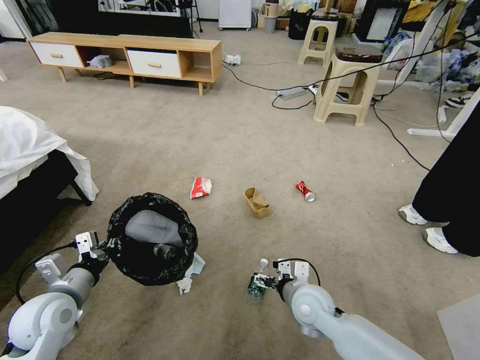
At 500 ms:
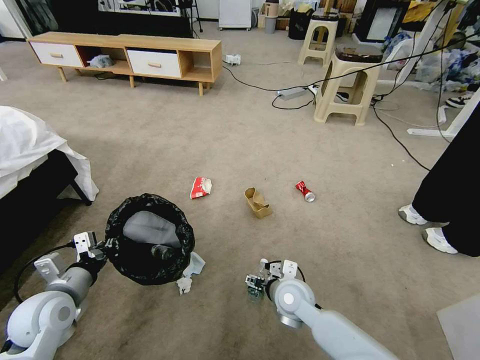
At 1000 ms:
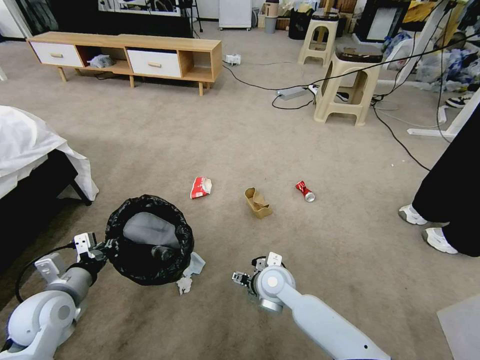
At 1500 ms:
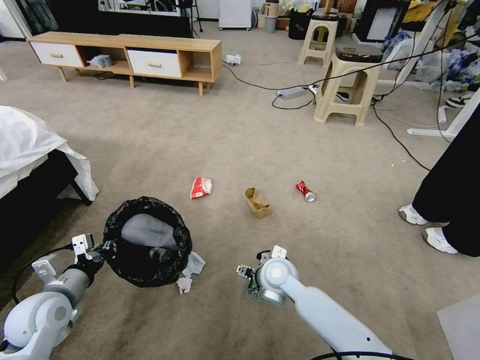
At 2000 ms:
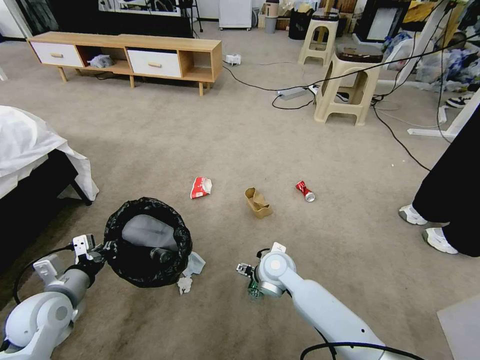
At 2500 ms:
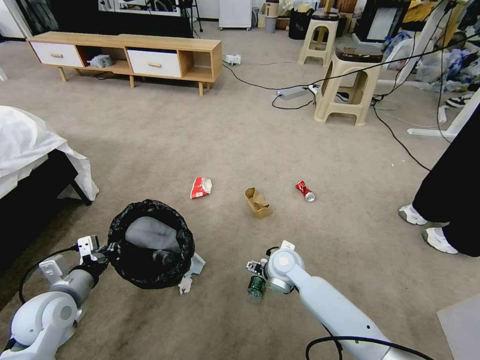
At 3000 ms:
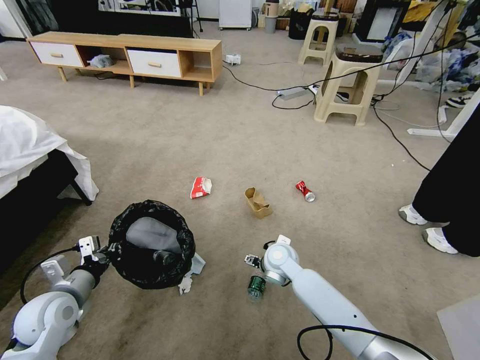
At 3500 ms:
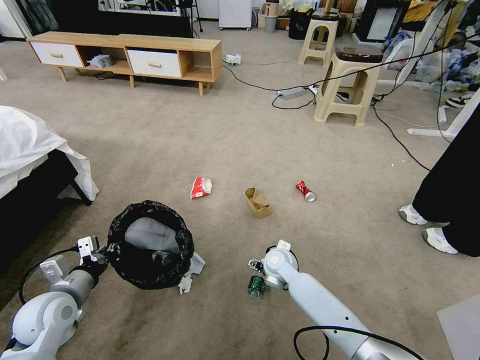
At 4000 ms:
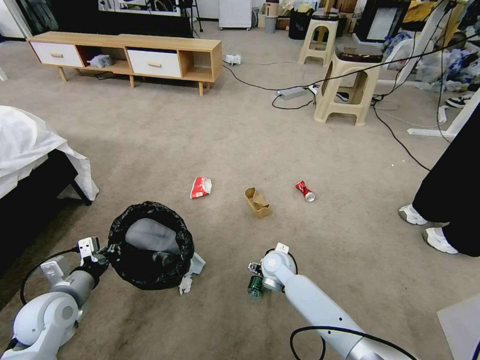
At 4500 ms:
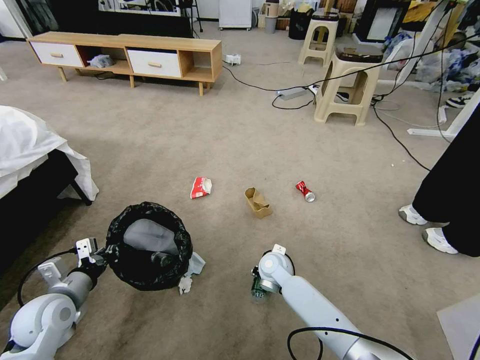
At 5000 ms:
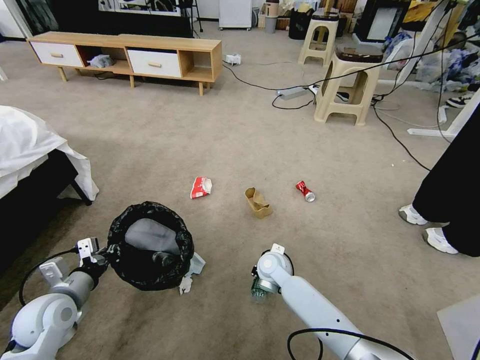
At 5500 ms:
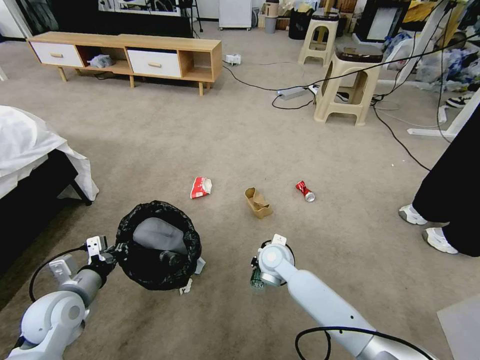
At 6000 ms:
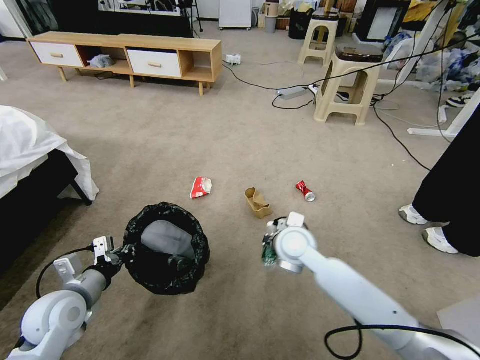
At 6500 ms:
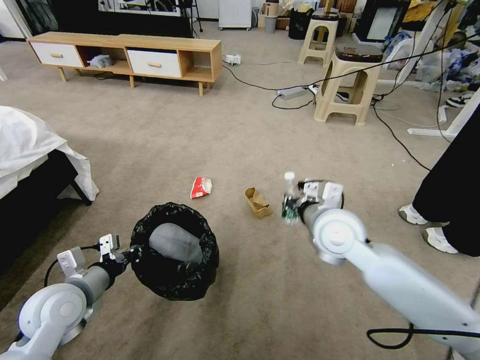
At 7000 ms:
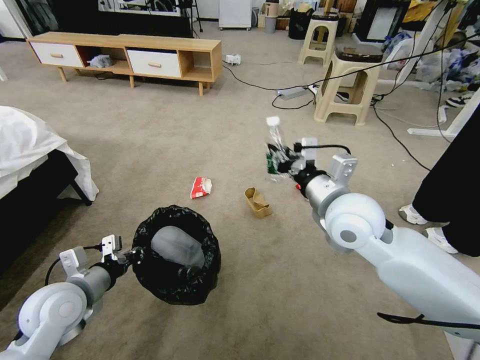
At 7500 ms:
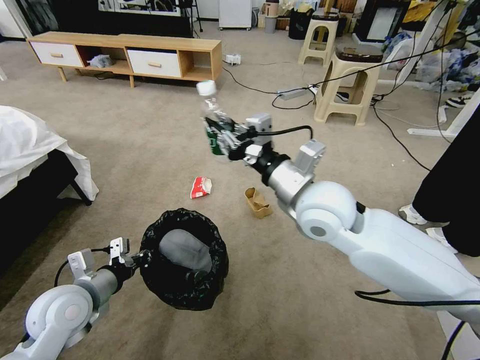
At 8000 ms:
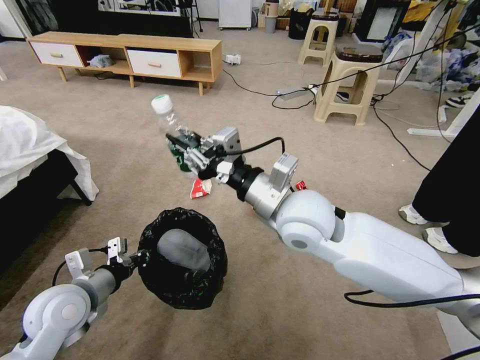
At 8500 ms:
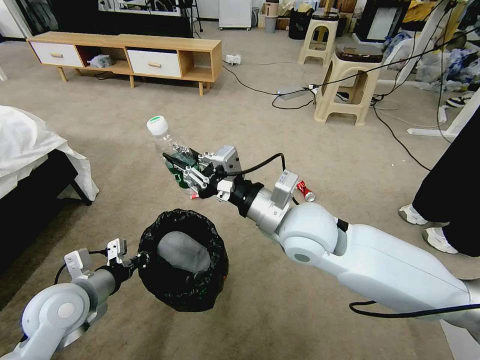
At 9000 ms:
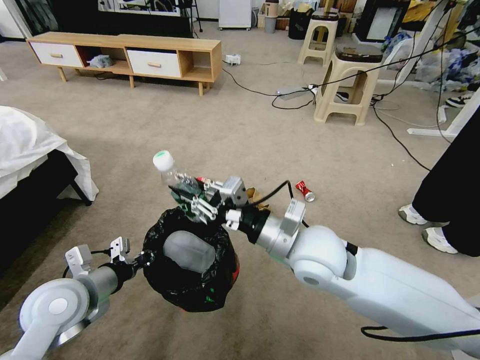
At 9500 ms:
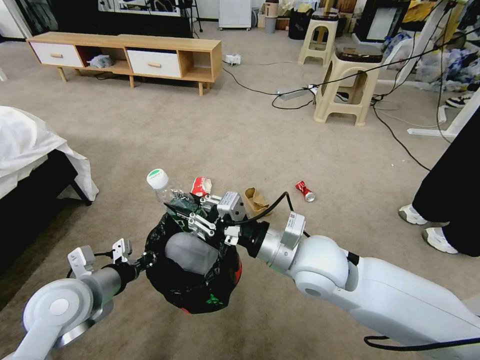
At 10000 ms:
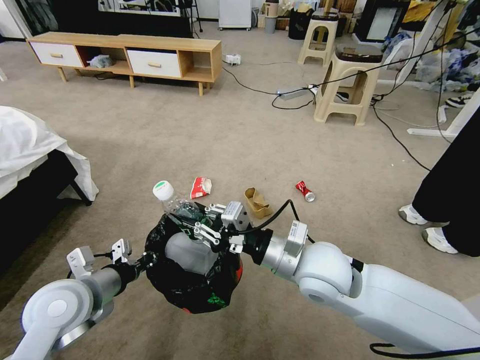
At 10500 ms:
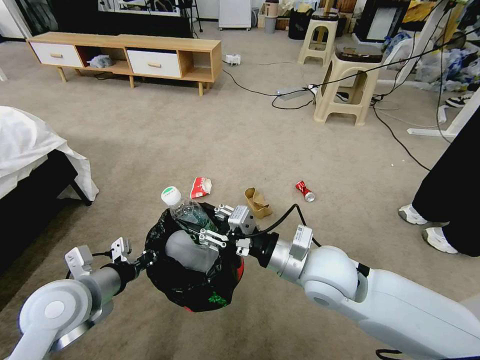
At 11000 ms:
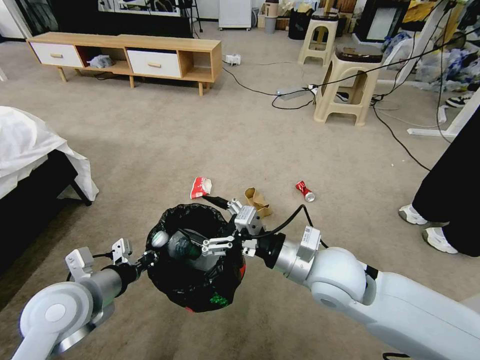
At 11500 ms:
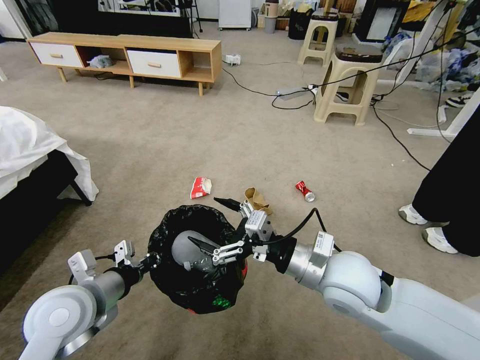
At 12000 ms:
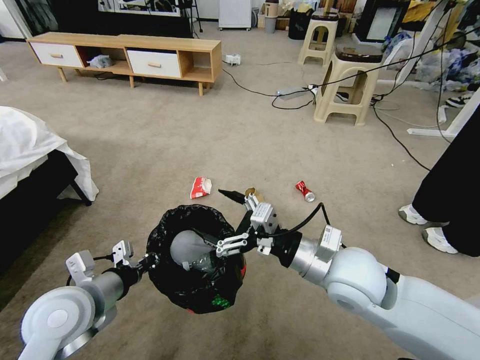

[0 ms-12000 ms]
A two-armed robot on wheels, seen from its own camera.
Task of the whole recording: Pick up the trash bin, then pick up the garbage from the floor and place it into the trash bin.
0 ms to 2000 ms: The right gripper is displaced to the left and forward by some 15 cm.
2000 ms to 4000 ms: The right gripper travels downward by about 5 cm.
4000 ms to 6000 ms: The right gripper is displaced upward by approximately 15 cm, and closes up.
6000 ms to 8000 ms: The right gripper heads upward, covering roughly 15 cm.
8000 ms to 10000 ms: The right gripper travels downward and backward by about 10 cm.
10000 ms to 12000 ms: The right gripper changes place by about 5 cm, and opens up.

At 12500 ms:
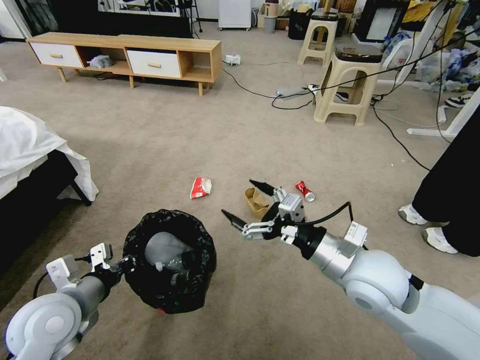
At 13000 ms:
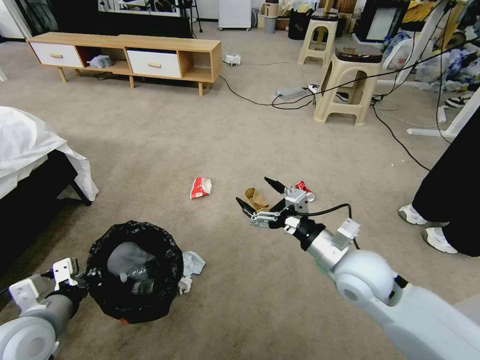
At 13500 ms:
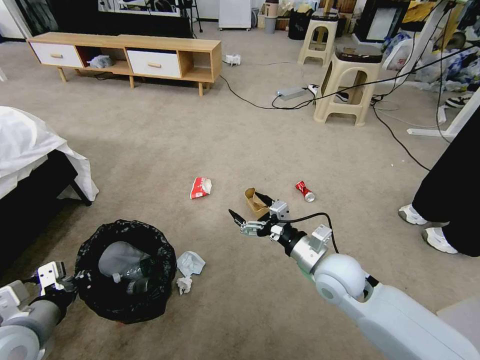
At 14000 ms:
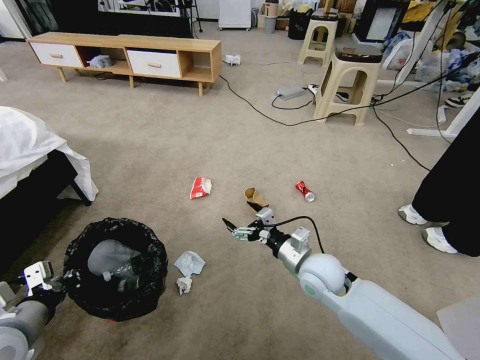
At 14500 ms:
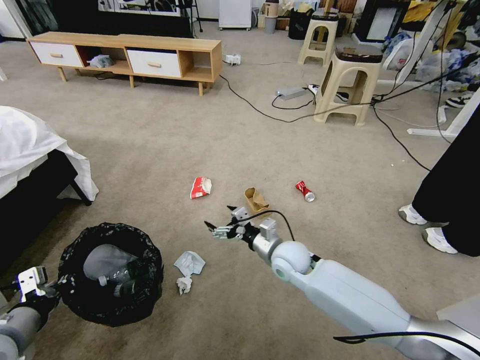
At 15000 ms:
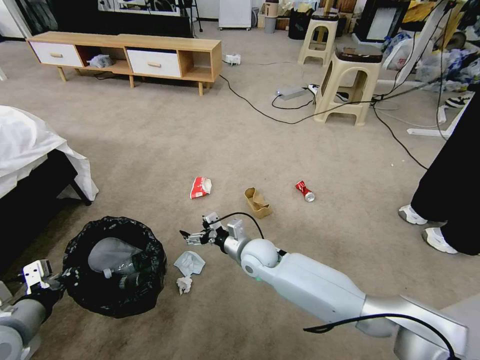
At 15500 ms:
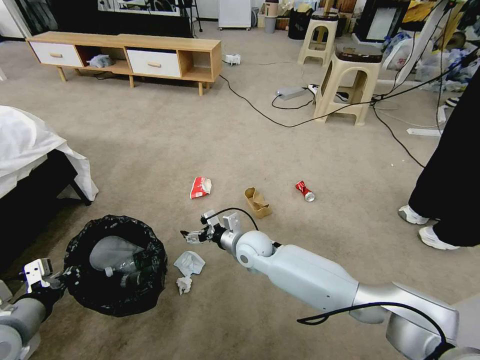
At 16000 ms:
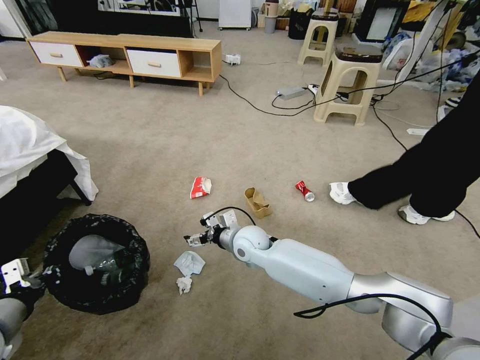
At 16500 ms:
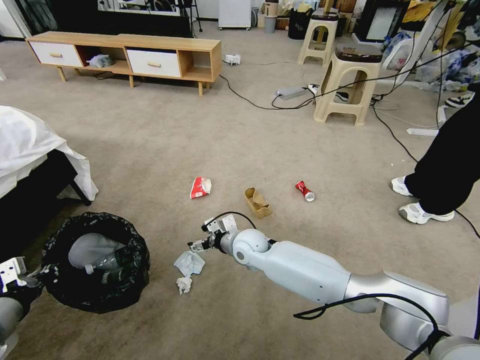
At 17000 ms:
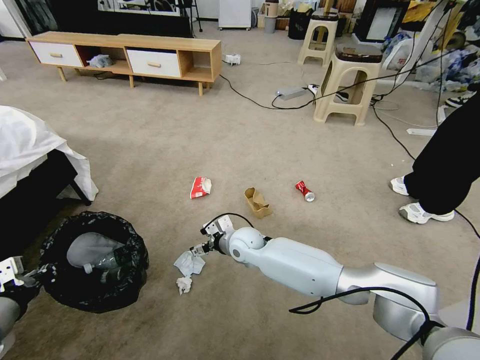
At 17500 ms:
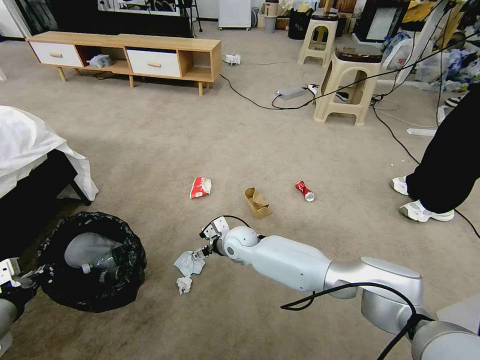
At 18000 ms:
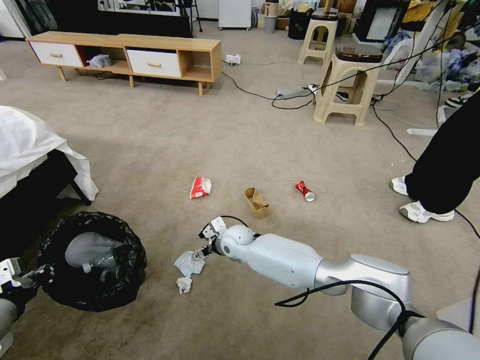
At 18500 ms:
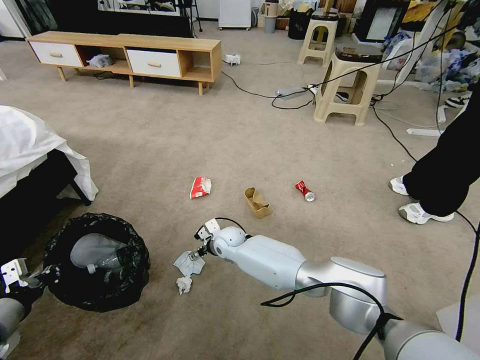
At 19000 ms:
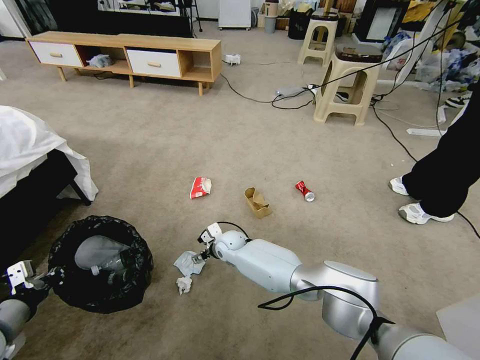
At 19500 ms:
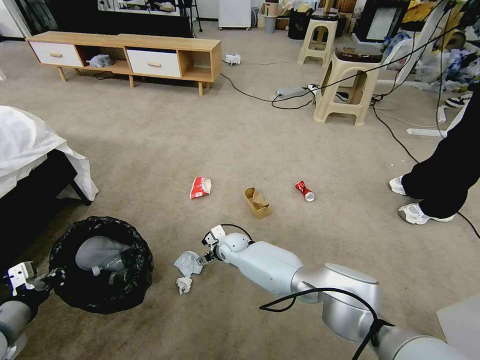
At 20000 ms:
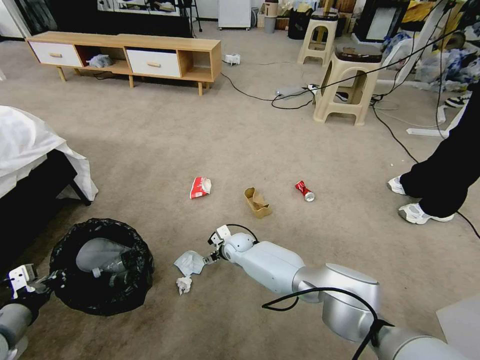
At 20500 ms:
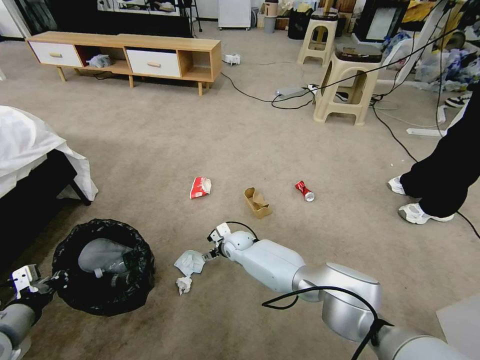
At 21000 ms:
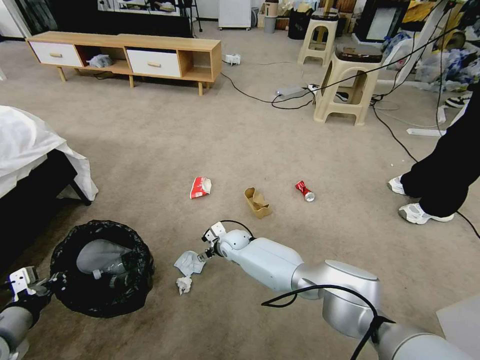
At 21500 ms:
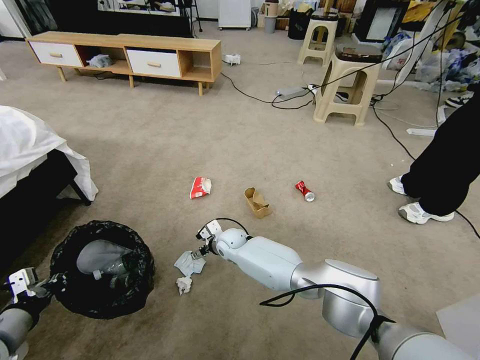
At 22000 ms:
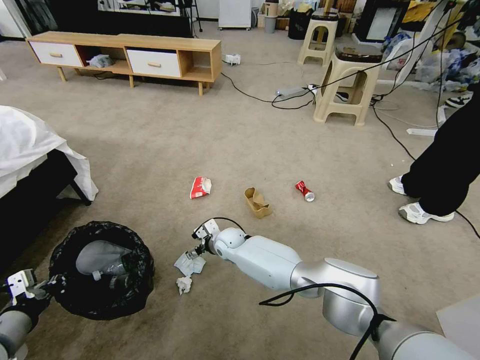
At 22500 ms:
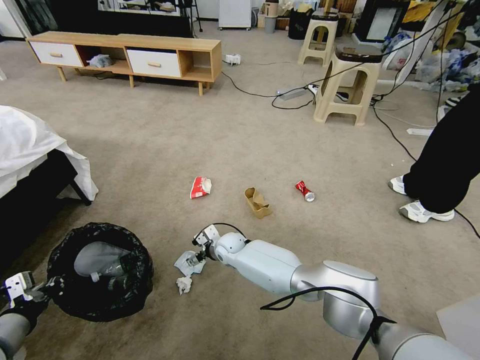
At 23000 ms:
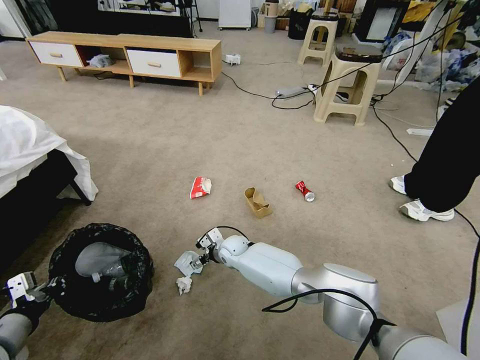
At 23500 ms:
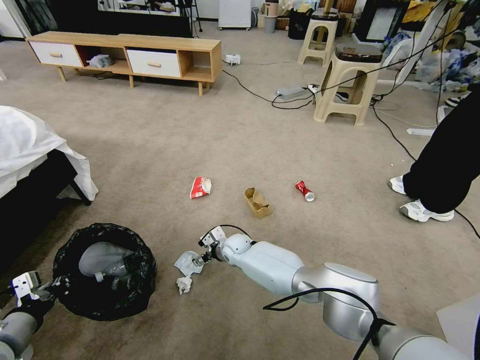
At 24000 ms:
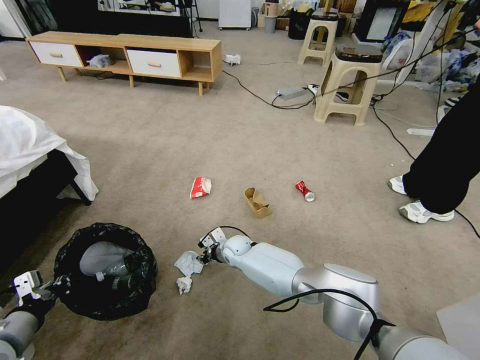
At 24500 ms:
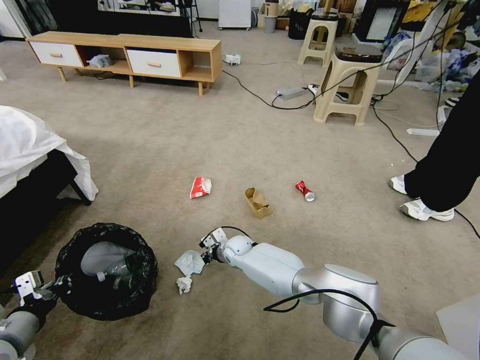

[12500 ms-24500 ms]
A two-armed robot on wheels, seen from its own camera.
Task of the whole recording: Pick up the trash bin, then pick up the garbage from the floor and place it into the trash bin.
12500 ms to 14500 ms: The right gripper travels downward, forward and to the left by some 20 cm. The left gripper shifts some 10 cm to the left and backward.
14500 ms to 16500 ms: The right gripper moves to the left and forward, approximately 10 cm.
16500 ms to 18500 ms: The right gripper heads to the left and downward, covering some 10 cm.
18500 ms to 20500 ms: The right gripper shifts by roughly 5 cm.
20500 ms to 22500 ms: The grippers stay close to where they were, moving slightly.
22500 ms to 24500 ms: The right gripper closes.

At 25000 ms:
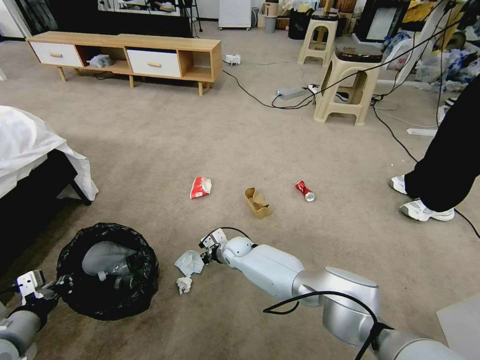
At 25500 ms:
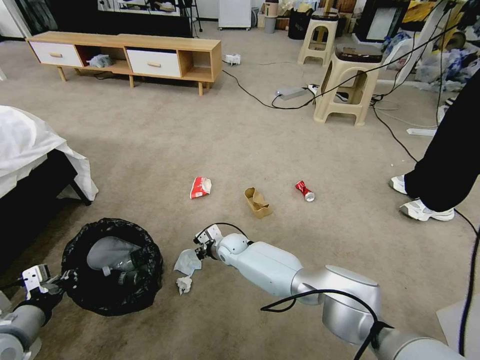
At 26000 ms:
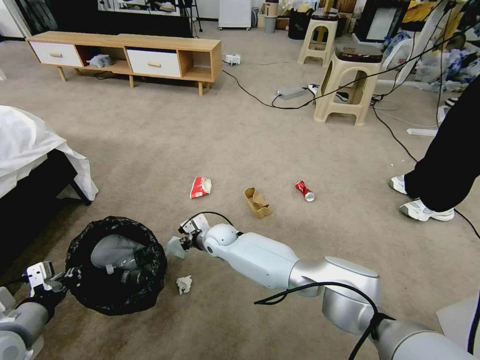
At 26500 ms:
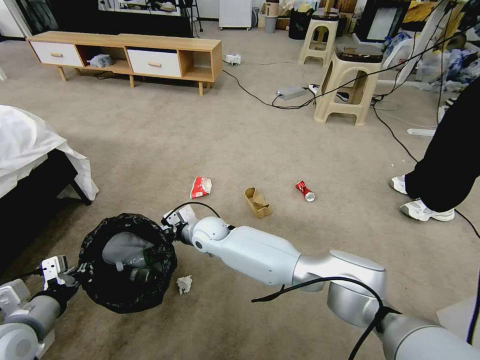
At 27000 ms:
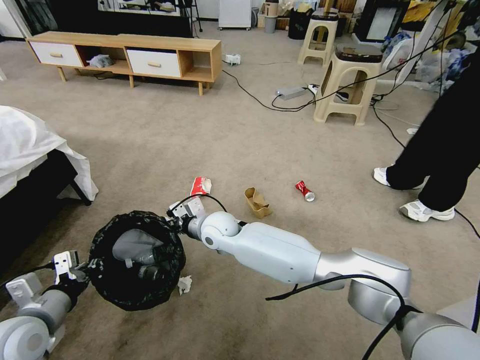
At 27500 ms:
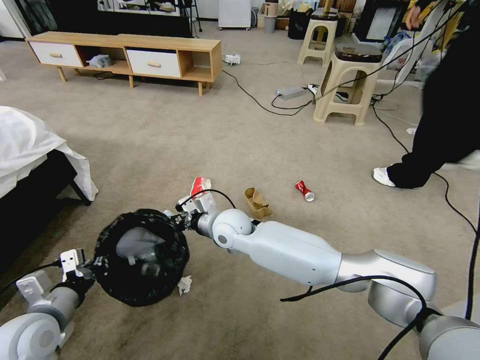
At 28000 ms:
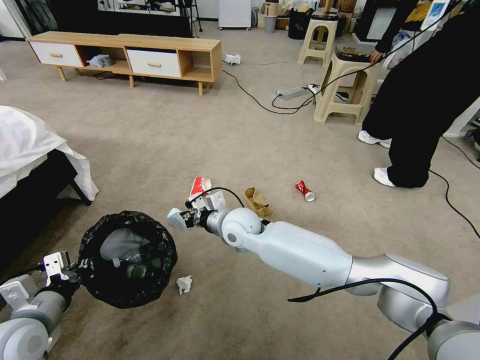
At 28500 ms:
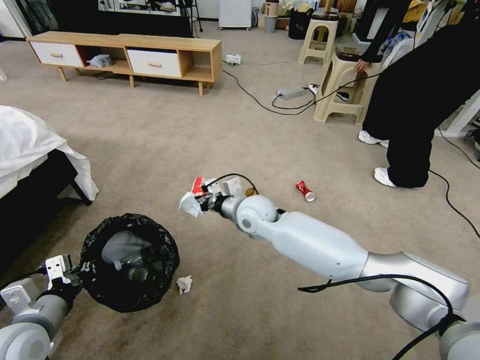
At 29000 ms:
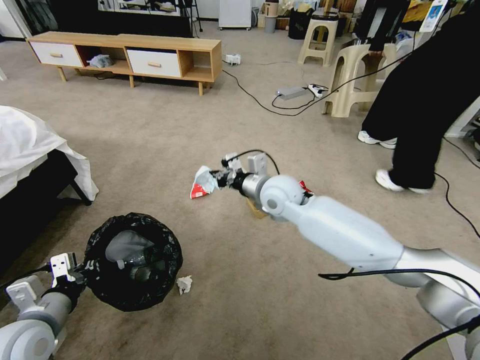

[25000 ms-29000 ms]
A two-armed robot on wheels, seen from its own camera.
Task of the whole recording: Pick up the trash bin, then pick up the garbage from the floor and place it into the trash bin.
25000 ms to 27000 ms: The right gripper shifts about 15 cm upward. The left gripper goes about 5 cm to the right.
27000 ms to 29000 ms: The right gripper is displaced to the right and upward by approximately 20 cm.
